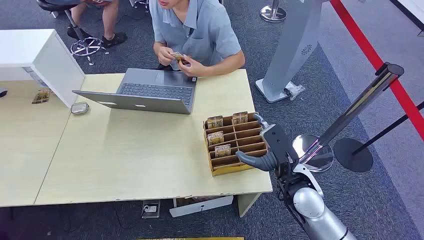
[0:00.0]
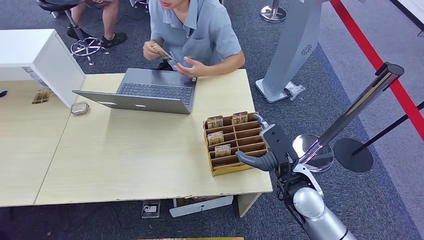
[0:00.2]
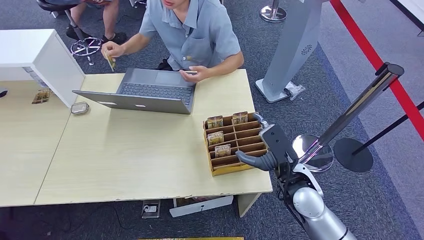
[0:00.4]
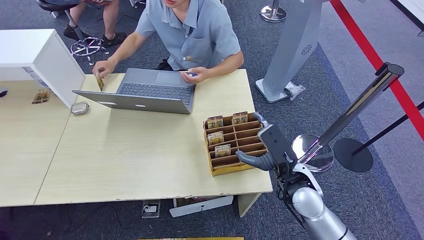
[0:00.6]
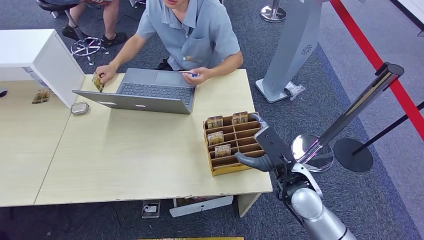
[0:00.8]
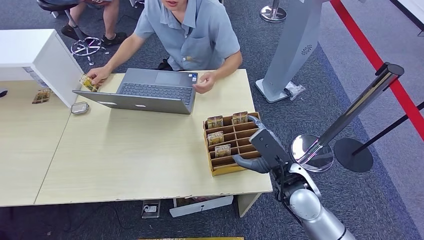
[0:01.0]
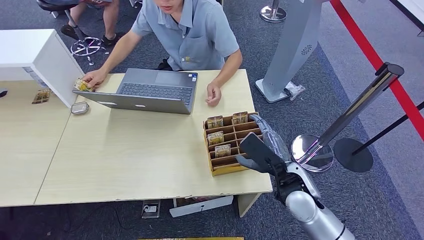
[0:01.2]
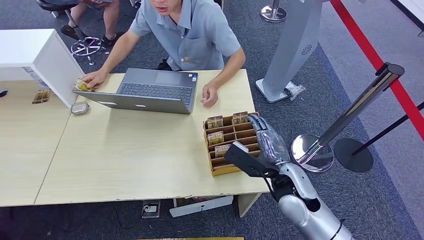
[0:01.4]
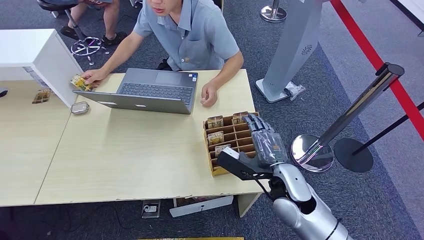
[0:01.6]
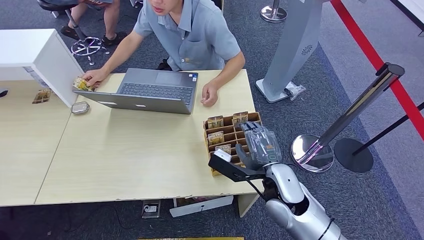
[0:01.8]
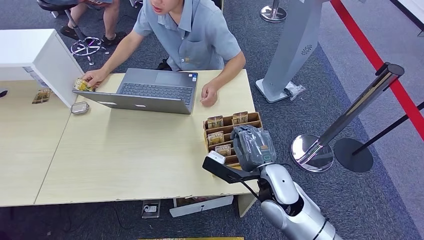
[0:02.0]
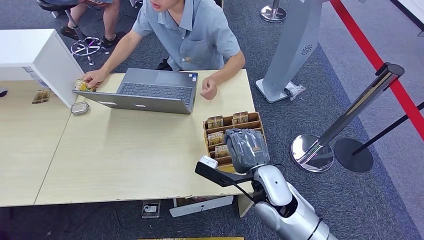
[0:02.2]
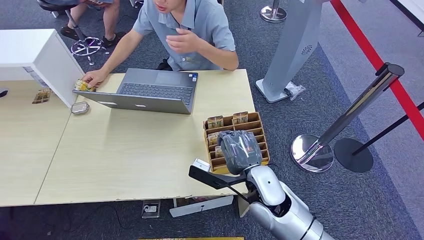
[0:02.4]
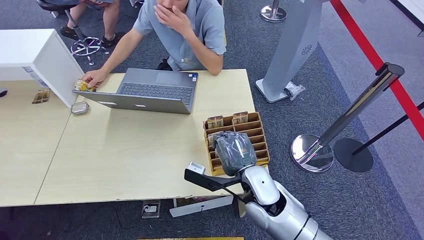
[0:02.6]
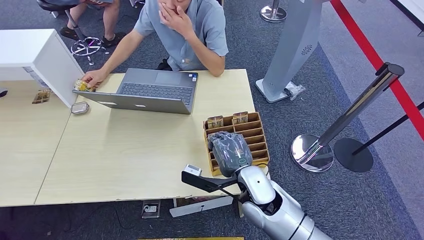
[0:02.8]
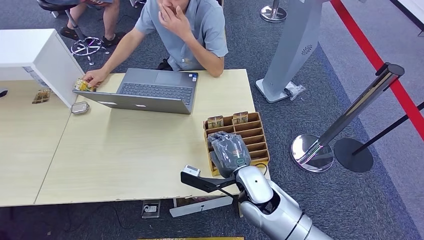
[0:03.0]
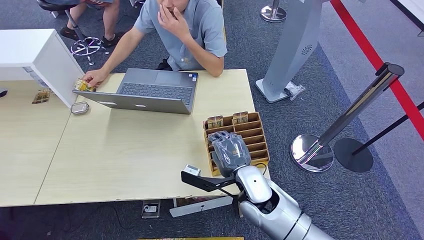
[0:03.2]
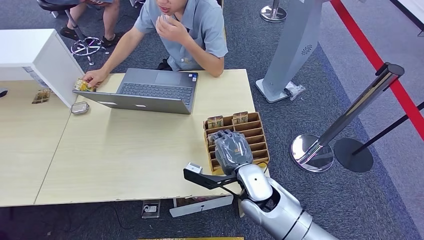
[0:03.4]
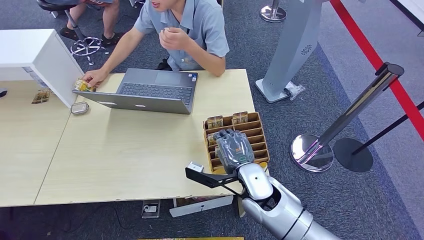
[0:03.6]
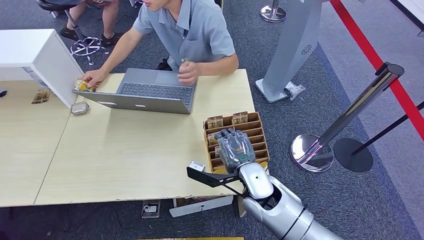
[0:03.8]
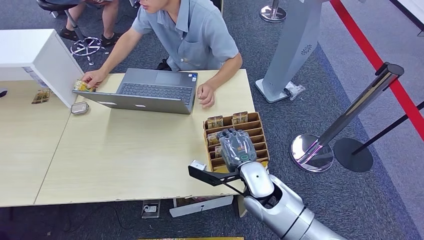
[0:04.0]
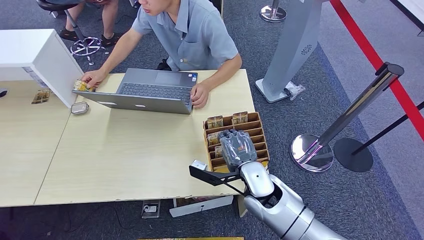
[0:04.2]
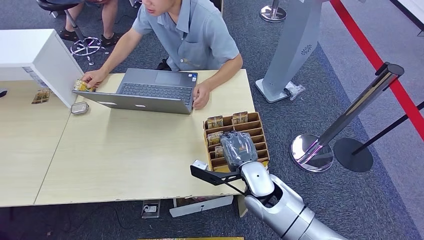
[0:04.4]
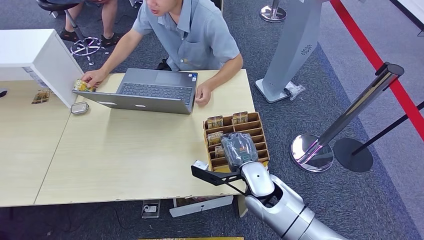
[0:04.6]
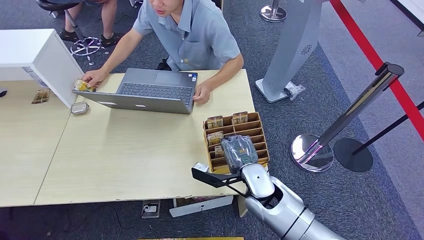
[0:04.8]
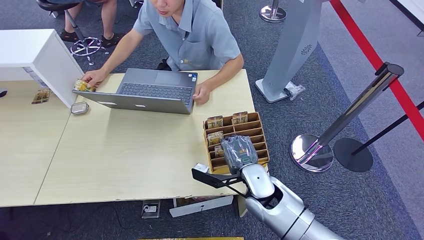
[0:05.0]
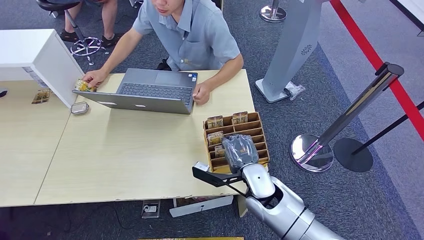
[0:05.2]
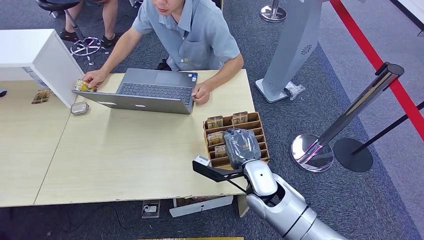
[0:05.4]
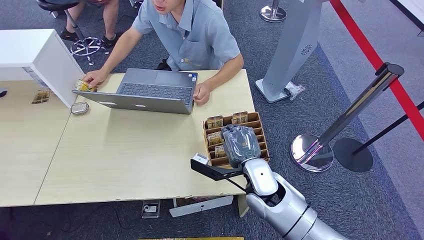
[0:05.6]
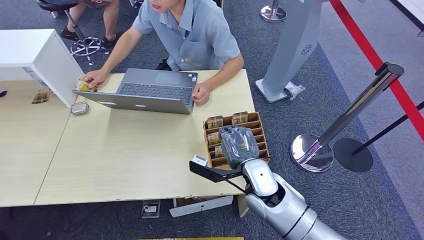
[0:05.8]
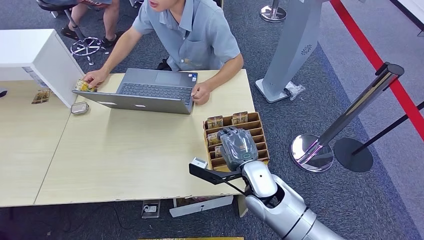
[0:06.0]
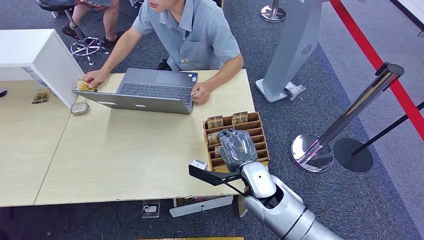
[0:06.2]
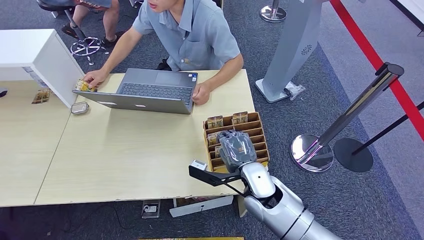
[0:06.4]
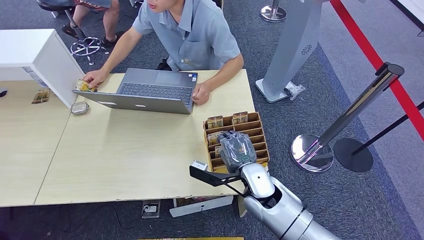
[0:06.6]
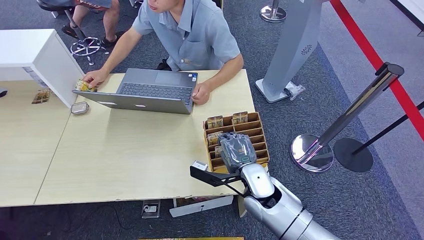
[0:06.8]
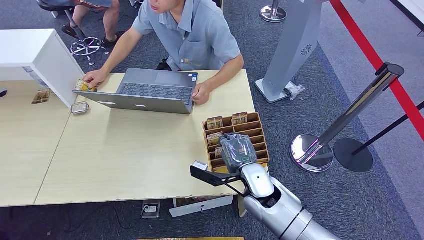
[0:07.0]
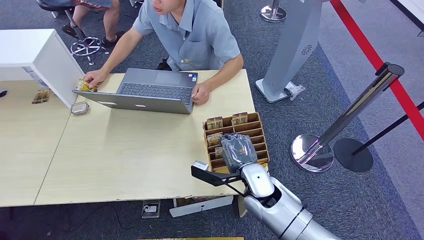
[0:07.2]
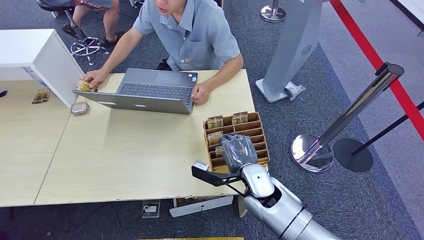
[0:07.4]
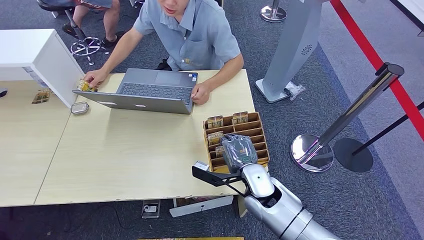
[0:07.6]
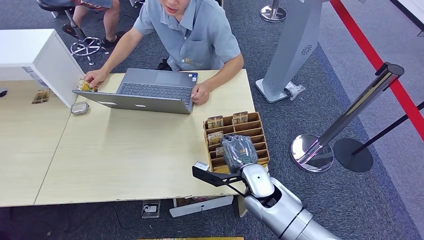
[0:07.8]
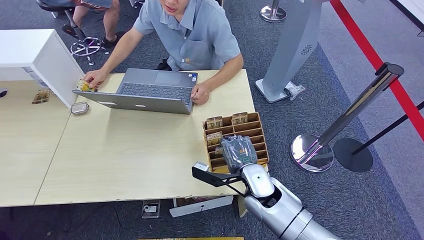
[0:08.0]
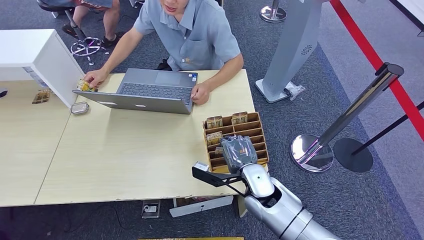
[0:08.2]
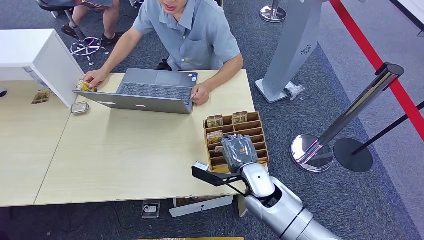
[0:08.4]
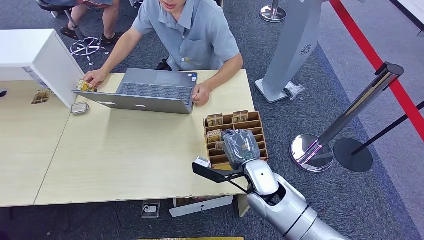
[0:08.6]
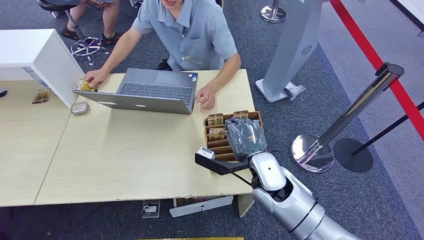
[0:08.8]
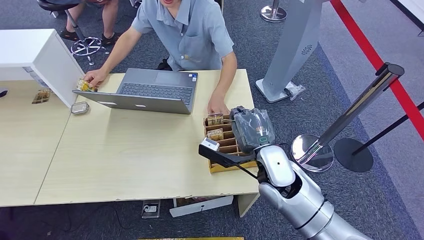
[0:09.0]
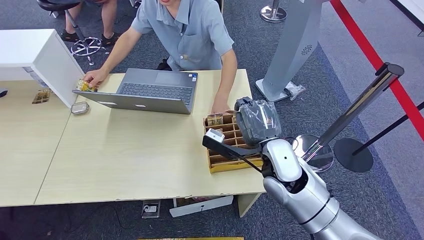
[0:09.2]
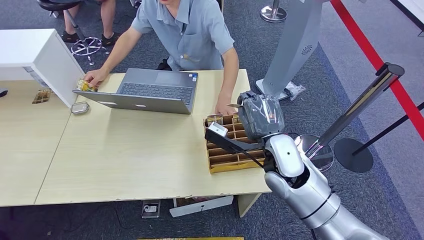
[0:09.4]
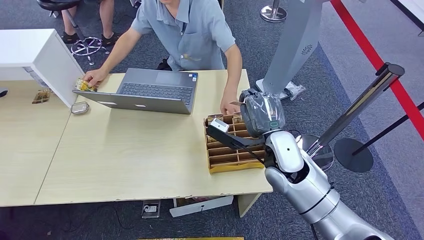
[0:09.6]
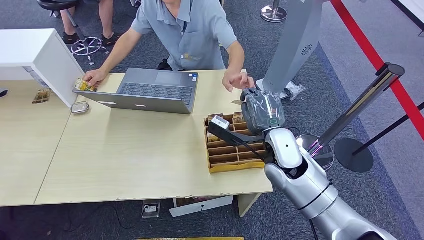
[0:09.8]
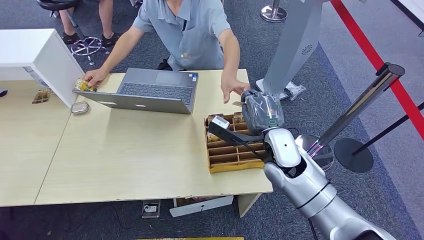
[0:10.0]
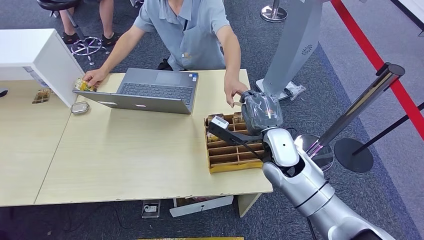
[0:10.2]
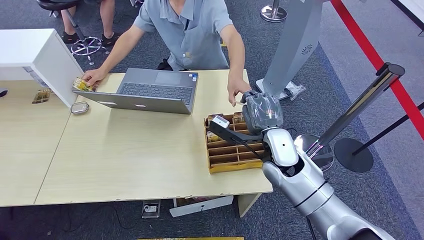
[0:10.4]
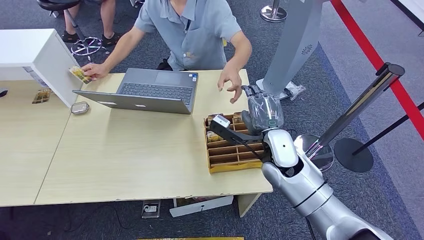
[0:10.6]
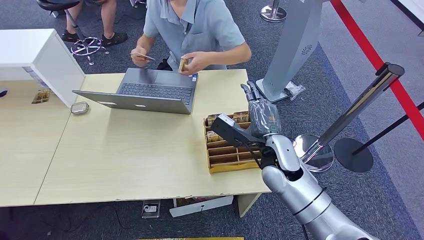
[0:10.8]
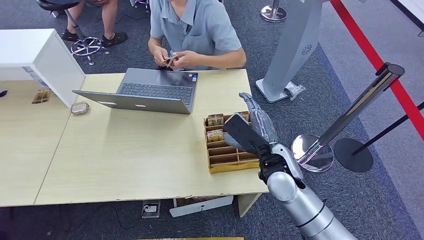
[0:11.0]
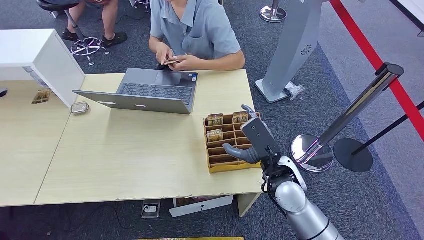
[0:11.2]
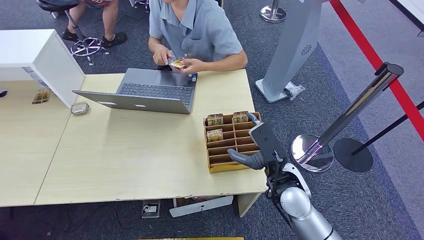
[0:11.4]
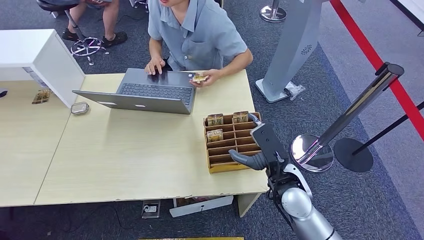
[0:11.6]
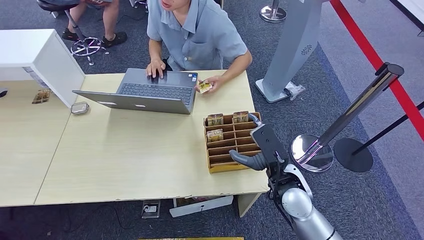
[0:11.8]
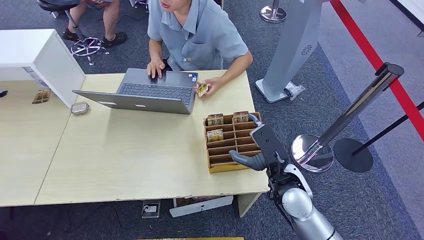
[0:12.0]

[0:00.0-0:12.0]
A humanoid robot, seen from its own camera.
Step, 0:00.0 to 0:09.0: Pick up the key card from the card box.
Step, 0:09.2 to 0:12.0: Hand the key card to the target.
0:01.6 to 0:03.0: The right hand travels to the left by about 10 cm.
0:03.0 to 0:07.6: There are only small adjustments of the hands.
0:07.6 to 0:09.0: The right hand moves upward, roughly 10 cm.
0:09.0 to 0:10.4: There are only small adjustments of the hands.
0:10.4 to 0:12.0: The right hand shifts about 5 cm backward.

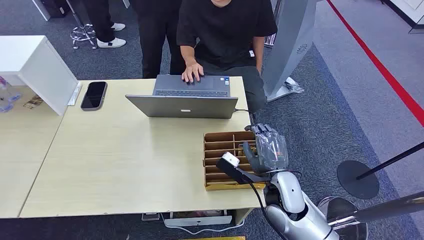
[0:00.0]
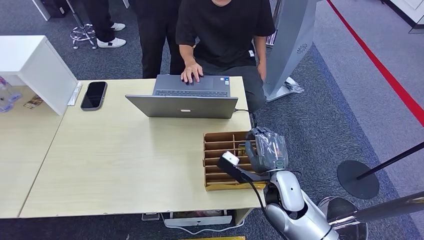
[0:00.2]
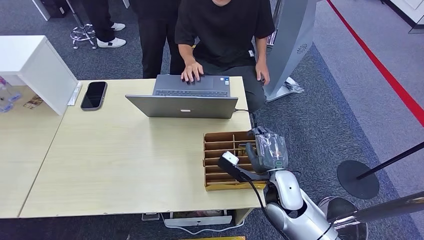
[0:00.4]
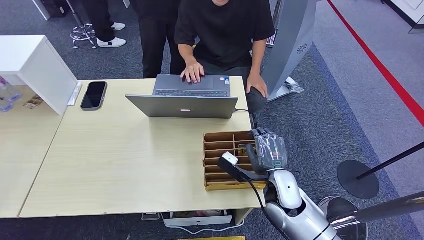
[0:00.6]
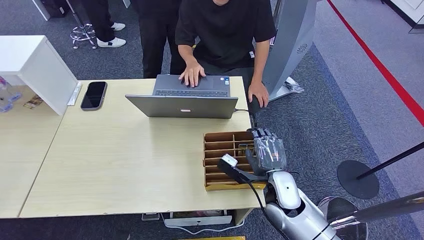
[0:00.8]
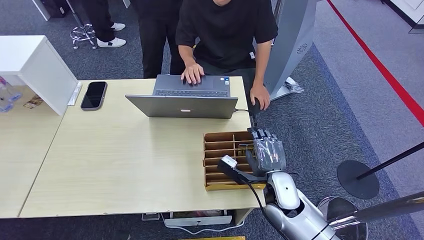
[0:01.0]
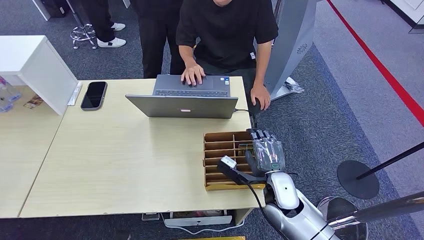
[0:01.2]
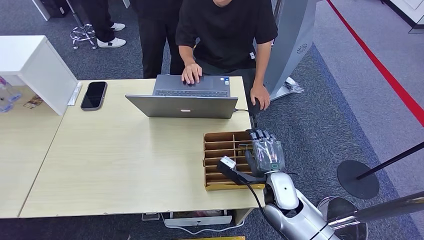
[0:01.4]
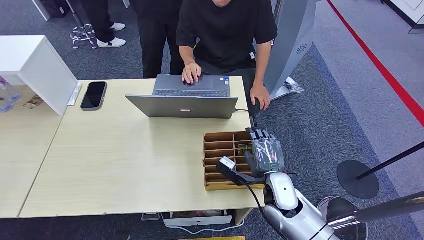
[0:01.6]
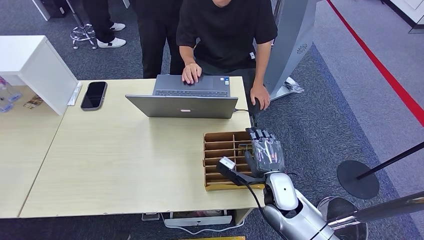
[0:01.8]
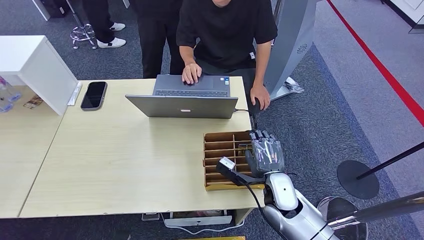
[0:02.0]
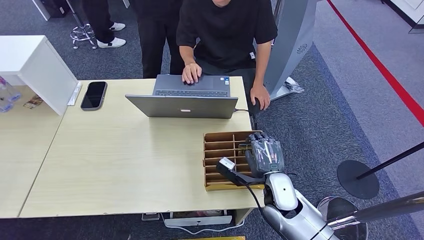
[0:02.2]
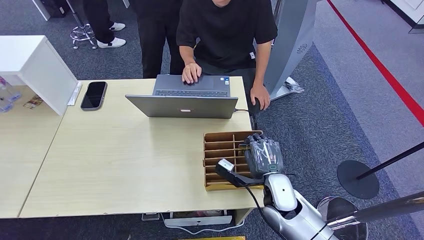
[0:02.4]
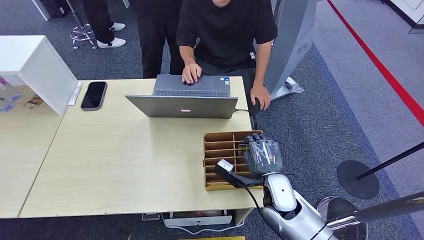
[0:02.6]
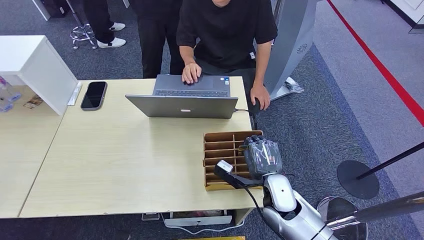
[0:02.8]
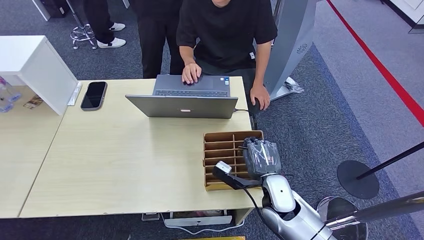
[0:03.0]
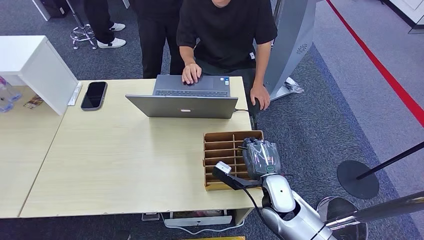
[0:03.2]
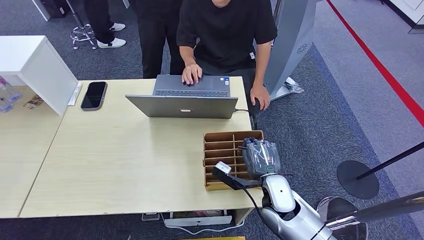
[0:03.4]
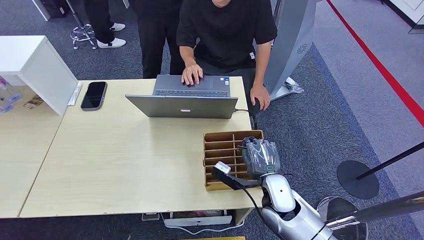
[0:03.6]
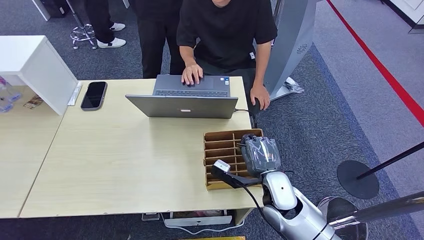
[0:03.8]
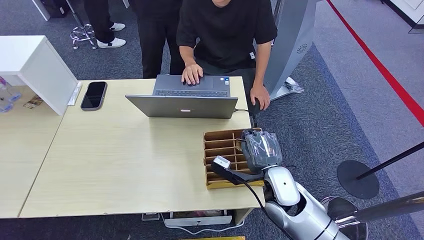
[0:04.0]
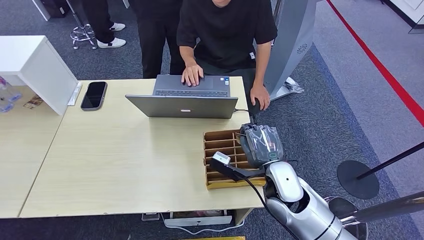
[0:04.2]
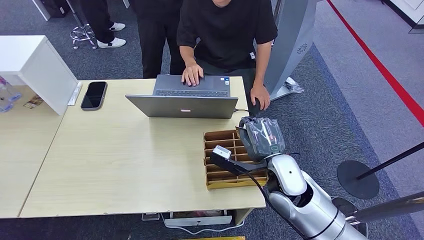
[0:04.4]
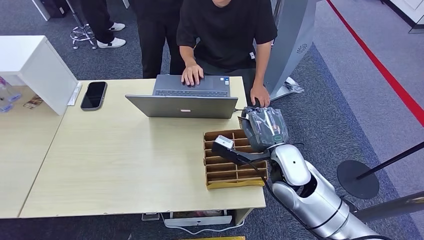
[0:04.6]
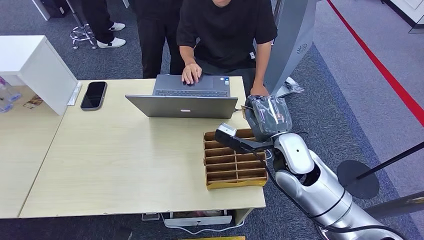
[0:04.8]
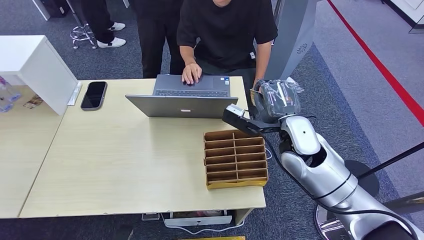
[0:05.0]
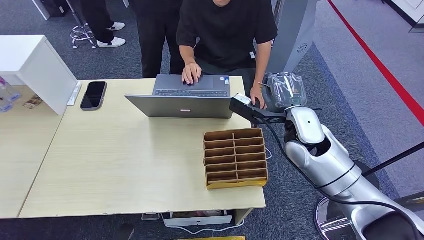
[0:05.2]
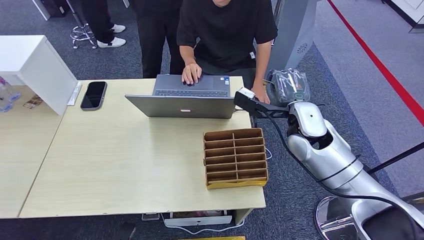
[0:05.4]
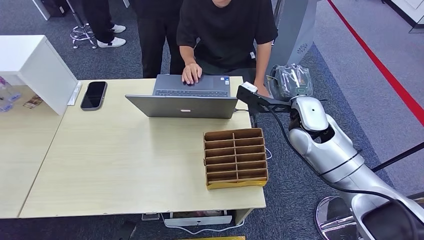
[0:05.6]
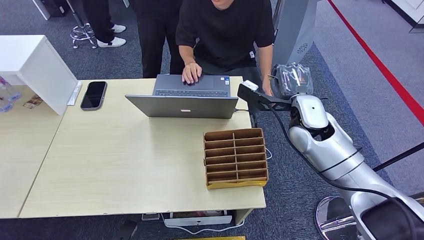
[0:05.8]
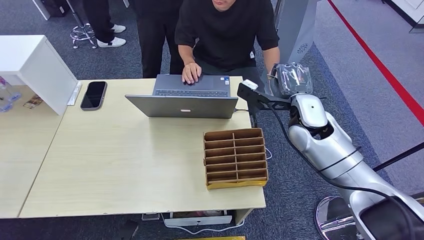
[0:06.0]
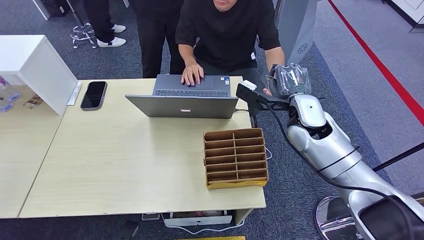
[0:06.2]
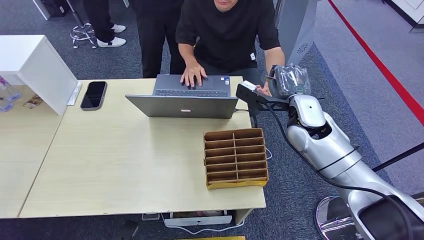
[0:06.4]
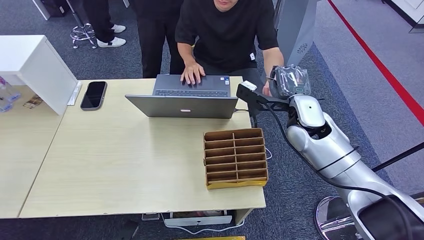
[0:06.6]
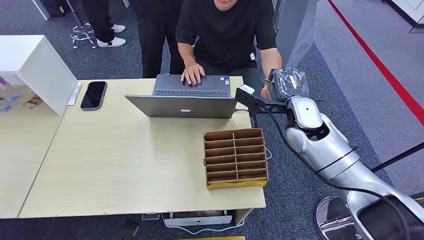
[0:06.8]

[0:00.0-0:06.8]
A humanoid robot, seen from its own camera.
Step, 0:00.0 to 0:04.6: Pick up the key card from the card box.
0:01.4 to 0:02.8: Both hands stay put.
0:02.8 to 0:04.0: There are only small adjustments of the hands.
0:04.0 to 0:05.4: The right hand moves upward, forward and to the right, about 20 cm.
0:05.4 to 0:06.8: The hands move only a little.
